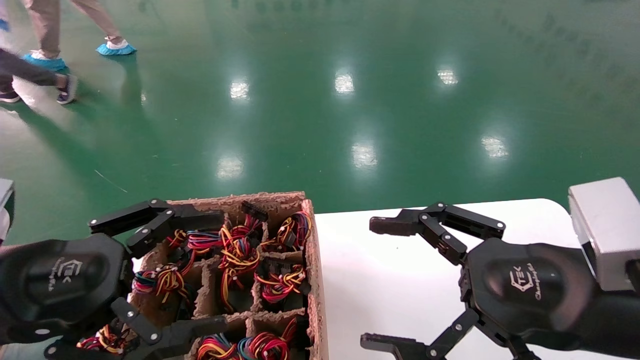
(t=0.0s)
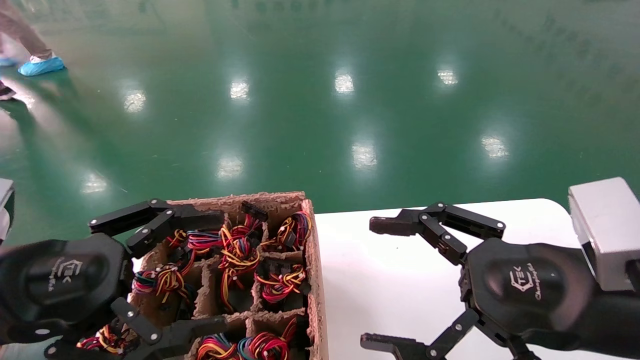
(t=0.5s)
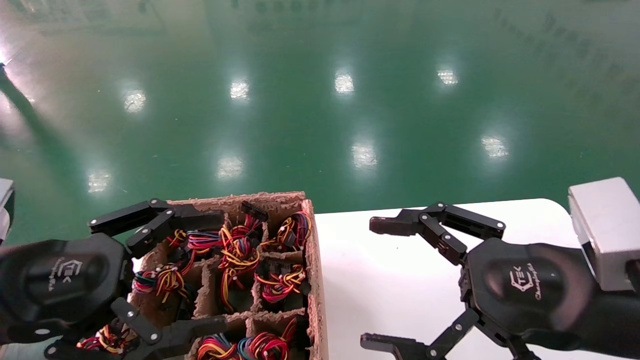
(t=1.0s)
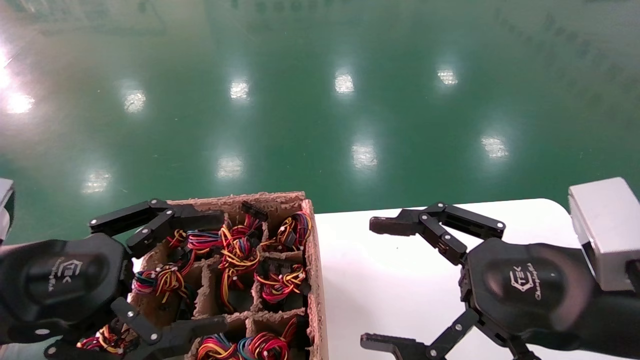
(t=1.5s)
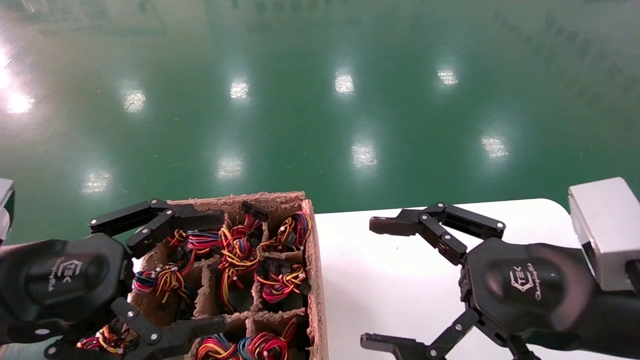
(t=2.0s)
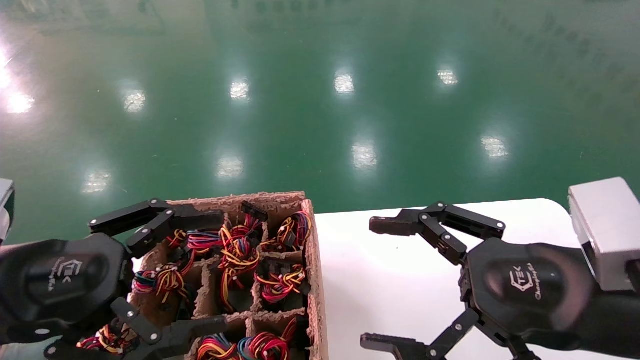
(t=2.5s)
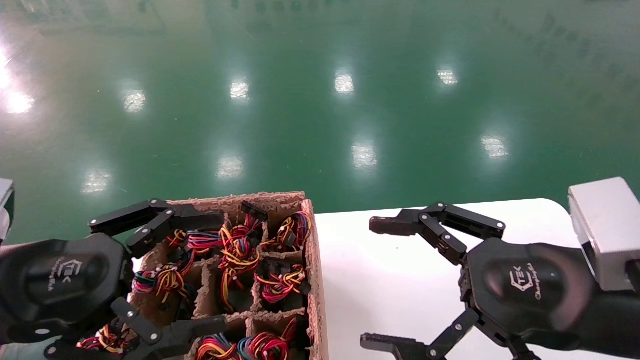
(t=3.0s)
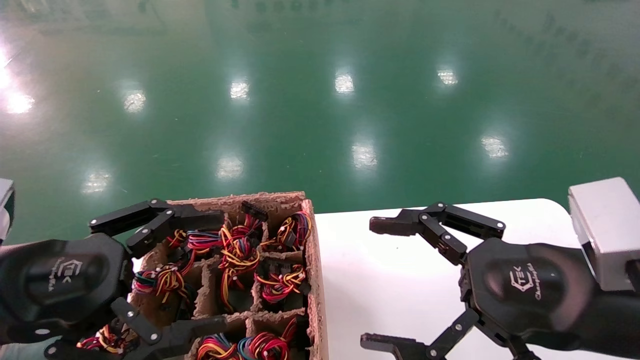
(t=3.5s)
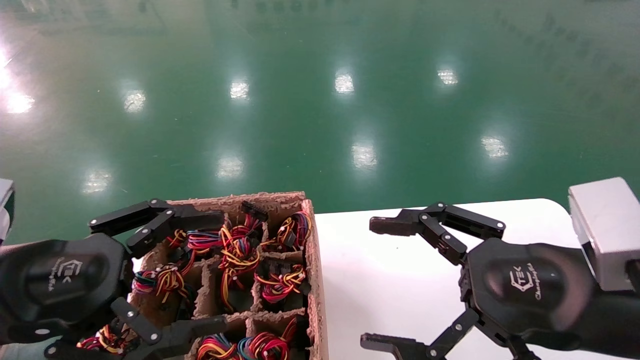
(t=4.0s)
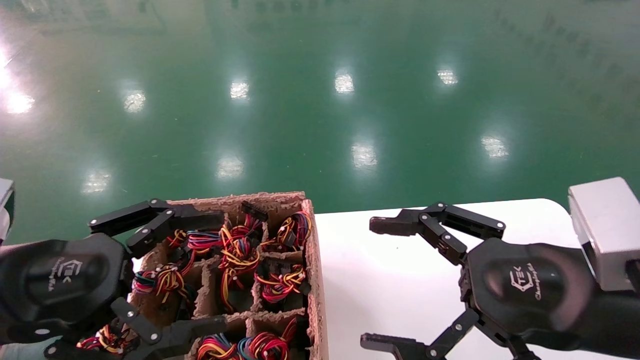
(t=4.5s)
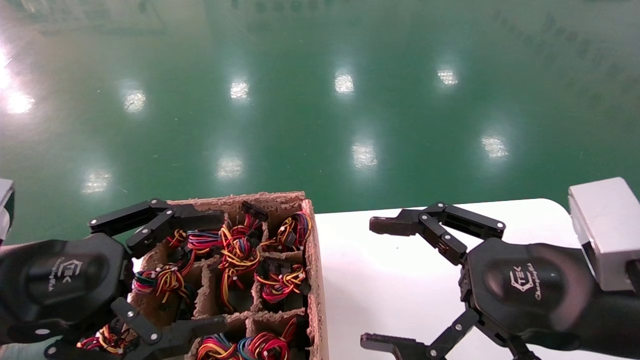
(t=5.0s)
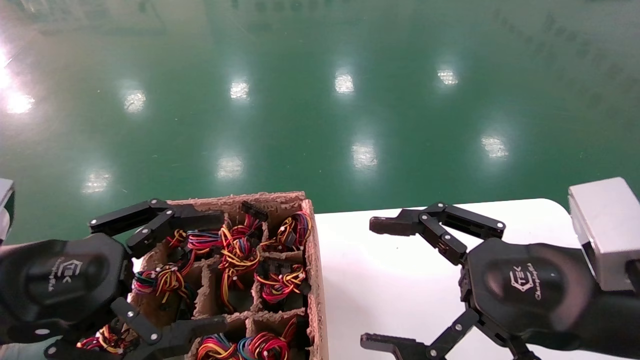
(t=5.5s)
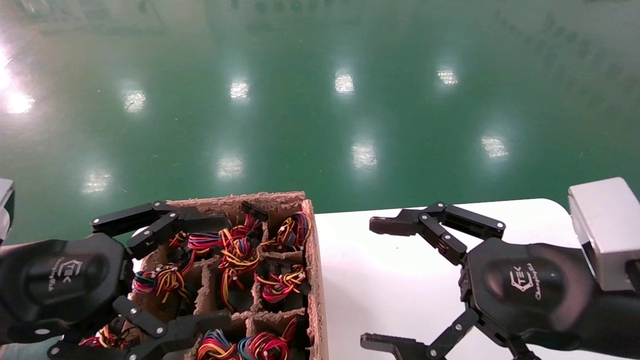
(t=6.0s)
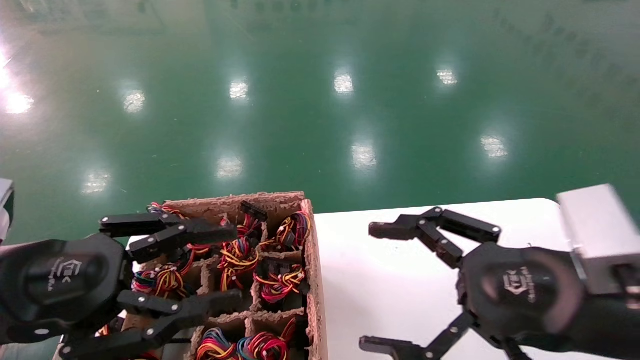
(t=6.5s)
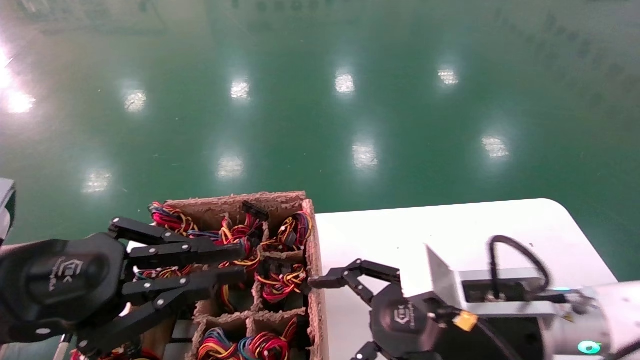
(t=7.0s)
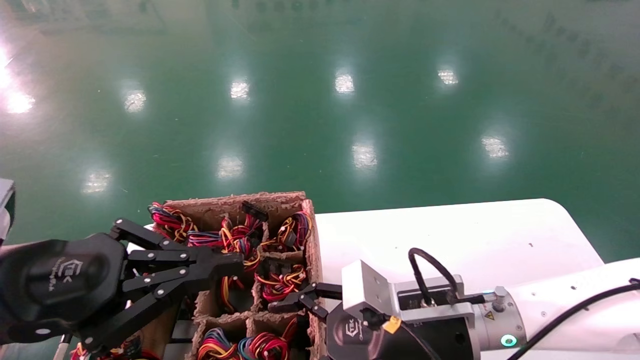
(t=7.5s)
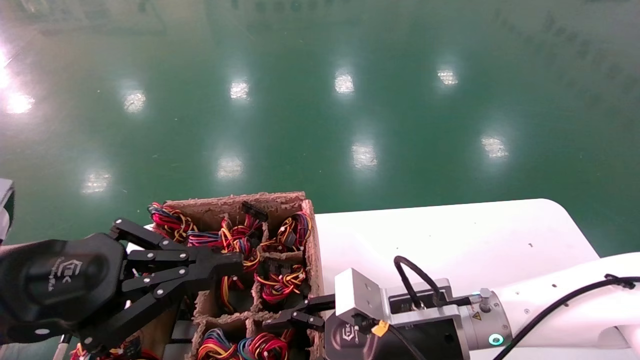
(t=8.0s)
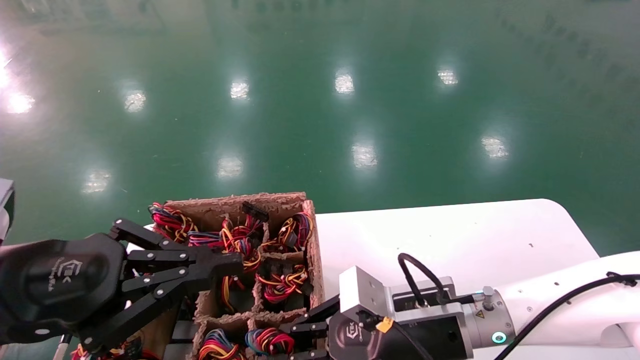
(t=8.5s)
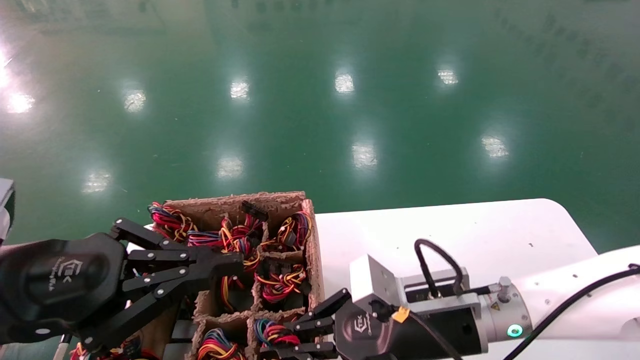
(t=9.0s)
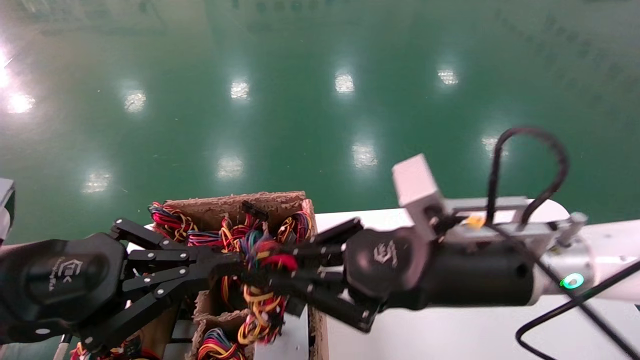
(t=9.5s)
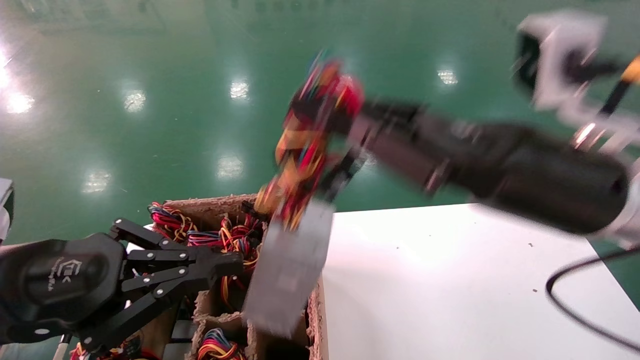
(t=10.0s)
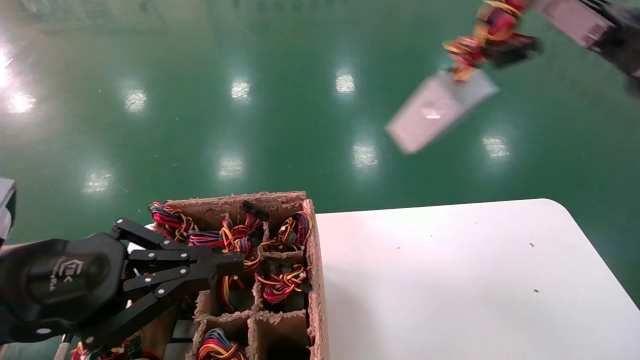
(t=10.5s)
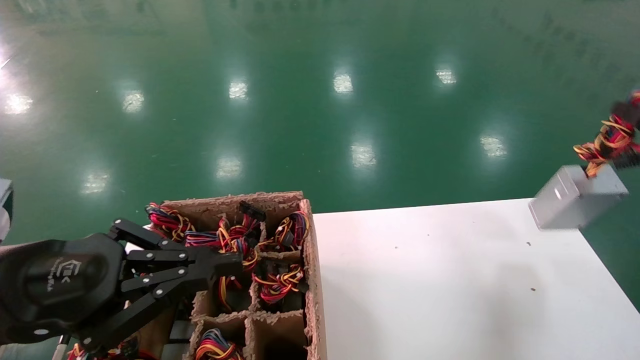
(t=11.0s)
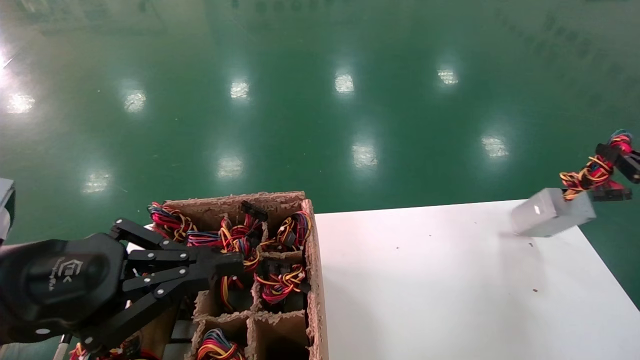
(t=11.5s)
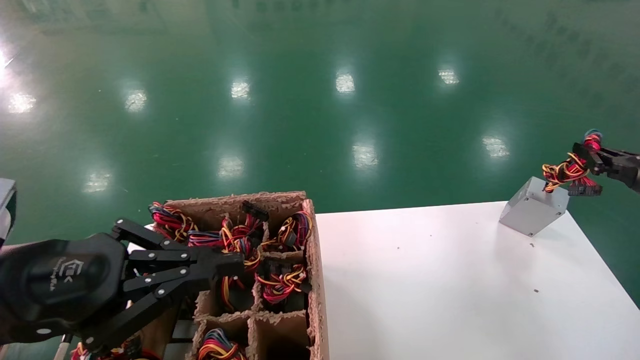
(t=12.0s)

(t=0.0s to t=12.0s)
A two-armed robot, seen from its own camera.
Step, t=7.0s - t=8.5s: Grab the main unit power supply from the containment box.
t=0.0s - t=6.0s: Both grippers stay about where they are.
t=6.0s - t=8.0s: The right gripper moves downward, to the left and forward, approximately 20 cm. Meanwhile the left gripper closes its fingers.
t=8.0s - t=10.0s: The right gripper is displaced upward by approximately 20 cm, and closes up.
t=10.0s - t=12.0s: The right gripper shifts approximately 30 cm to the right and forward.

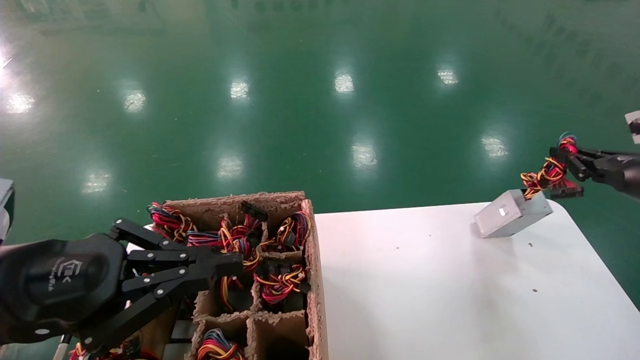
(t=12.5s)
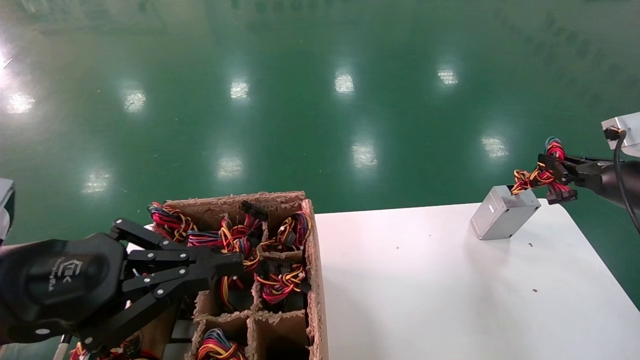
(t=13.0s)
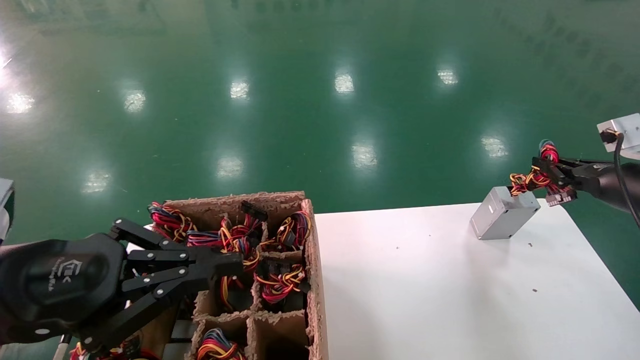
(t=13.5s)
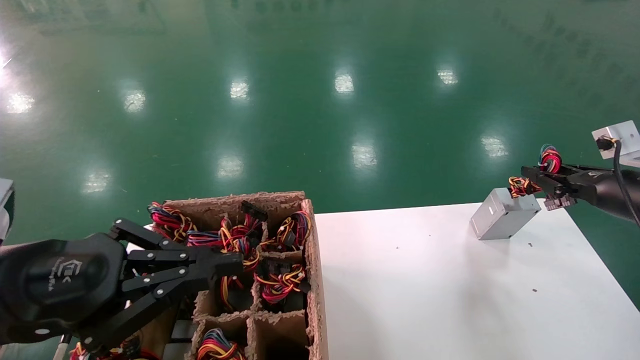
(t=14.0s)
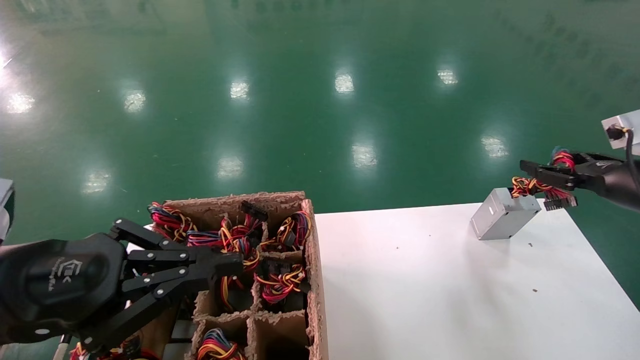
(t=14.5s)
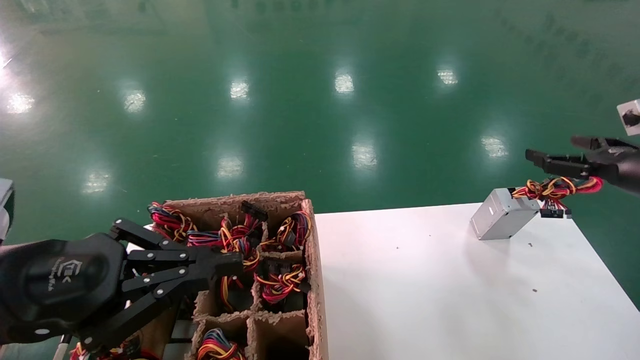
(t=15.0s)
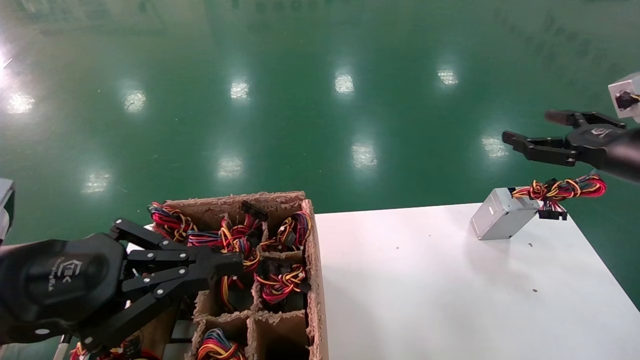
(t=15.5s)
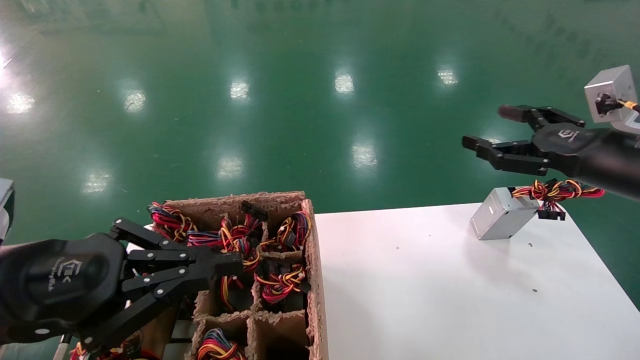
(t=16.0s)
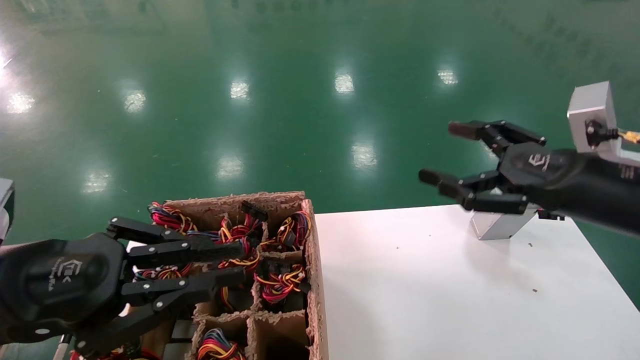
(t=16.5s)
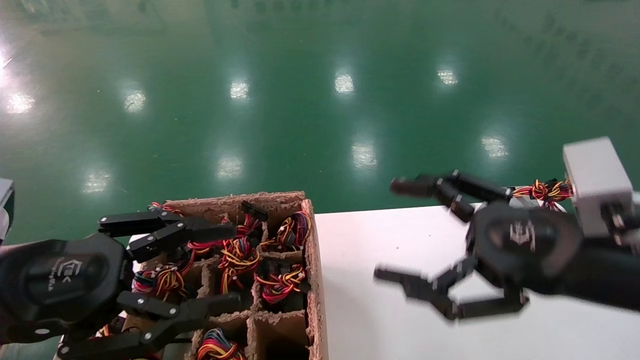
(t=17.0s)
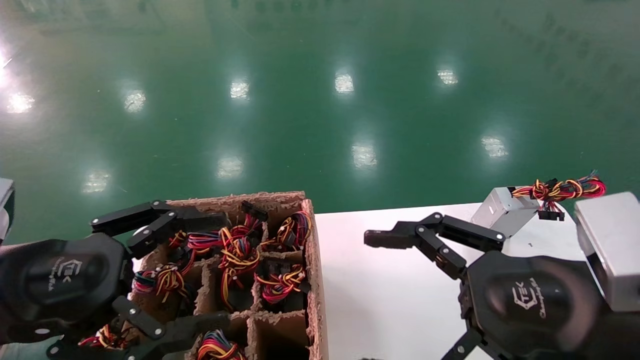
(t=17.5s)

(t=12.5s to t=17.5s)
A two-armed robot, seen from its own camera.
Step, t=12.5s - t=14.5s: Place the main unit power supply in the designated area.
t=12.5s - t=15.0s: The right gripper opens up.
t=15.0s - t=17.5s: The left gripper opens up; the right gripper shifts roughly 30 cm to the left and backward.

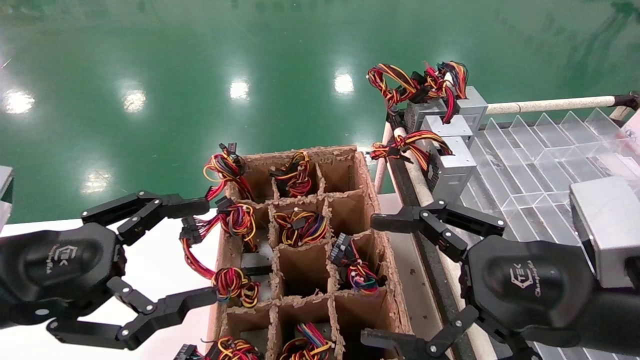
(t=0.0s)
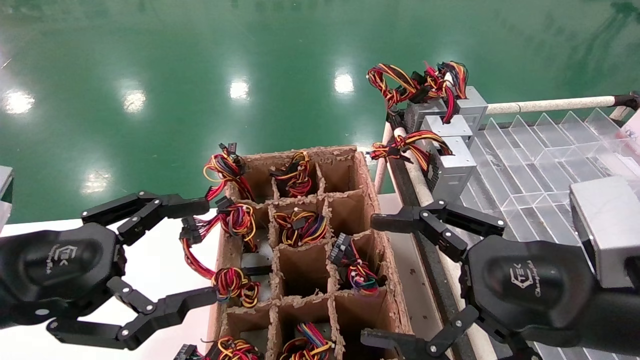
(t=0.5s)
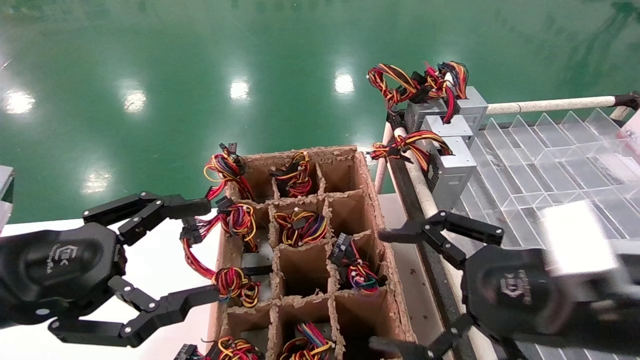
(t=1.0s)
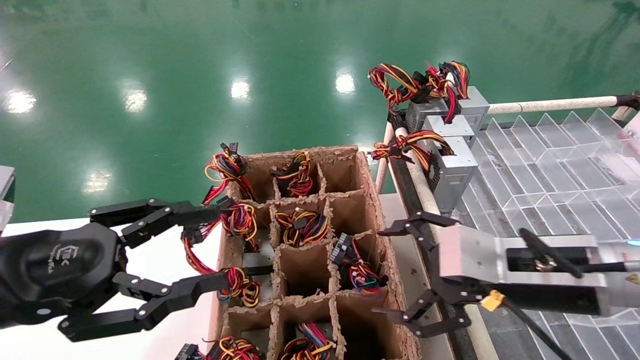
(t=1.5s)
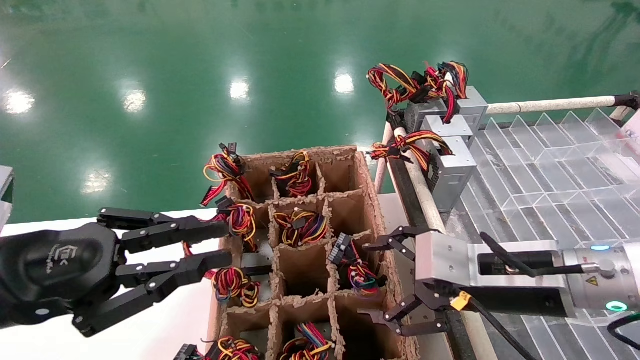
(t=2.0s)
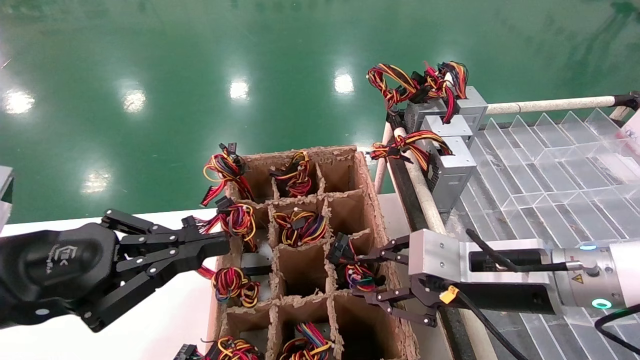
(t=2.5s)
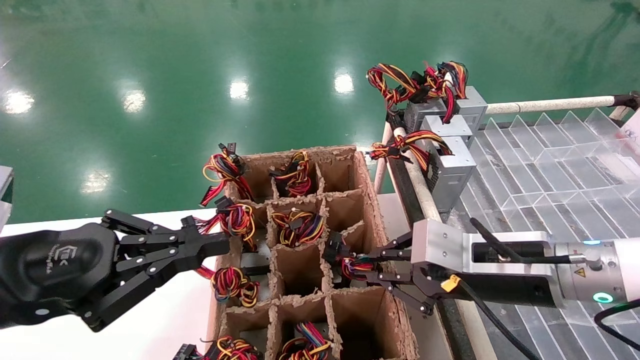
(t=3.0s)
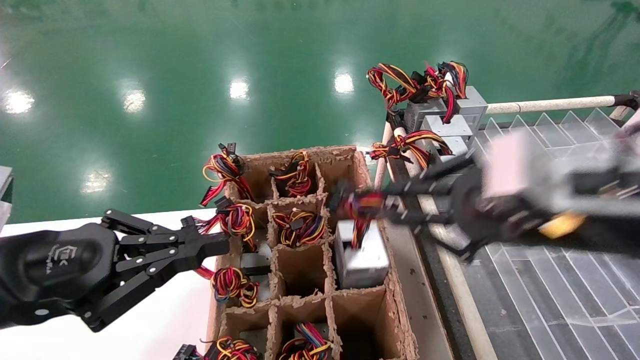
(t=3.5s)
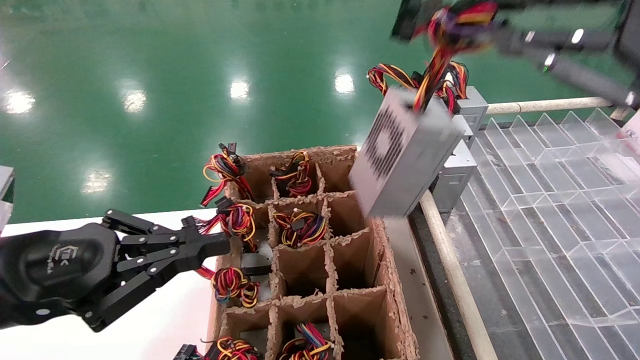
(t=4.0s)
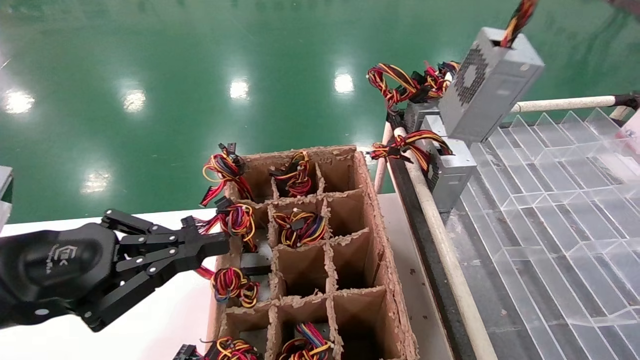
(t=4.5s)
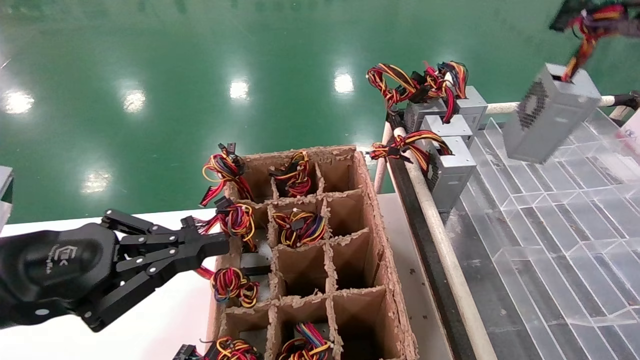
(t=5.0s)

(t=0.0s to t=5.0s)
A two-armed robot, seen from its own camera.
Step, t=1.5s - t=3.0s: Grab the main unit power supply from the containment box.
t=0.0s - t=2.5s: The left gripper closes up. Meanwhile the right gripper heads forward, covering about 10 cm, and closes its fingers.
t=2.5s - t=5.0s: The right gripper moves upward and to the right, roughly 30 cm, and closes up.
